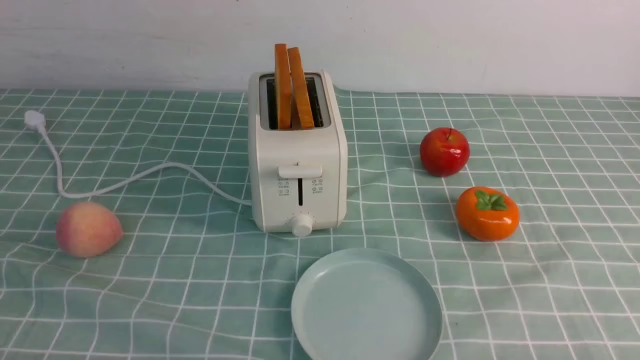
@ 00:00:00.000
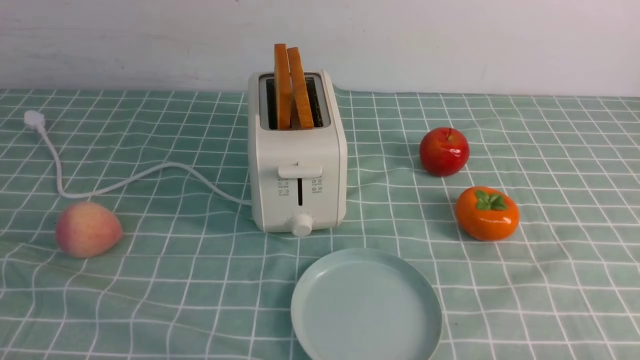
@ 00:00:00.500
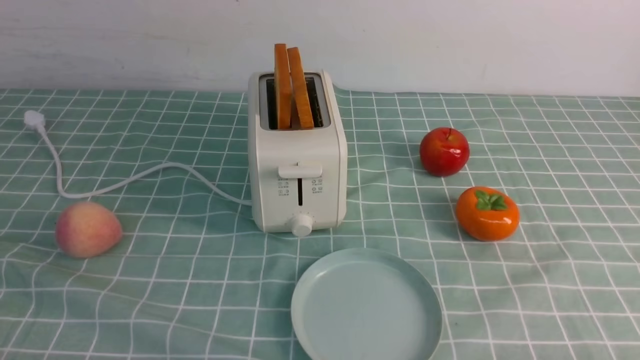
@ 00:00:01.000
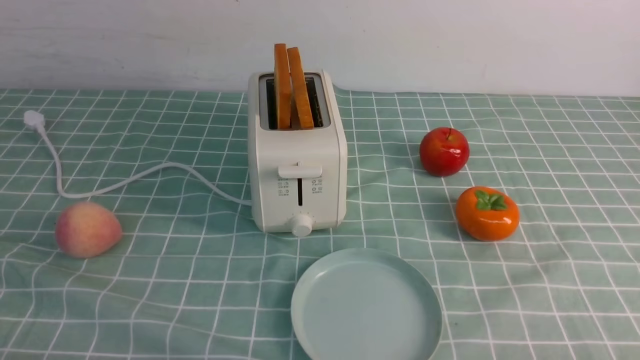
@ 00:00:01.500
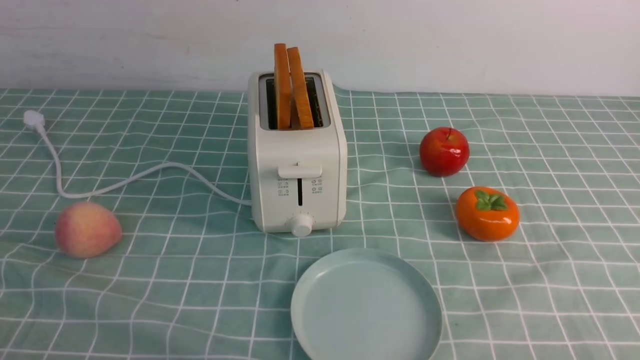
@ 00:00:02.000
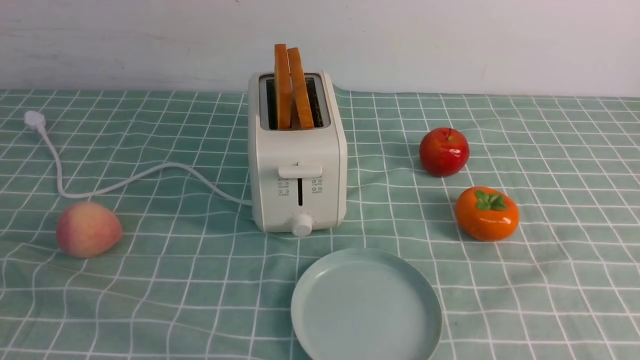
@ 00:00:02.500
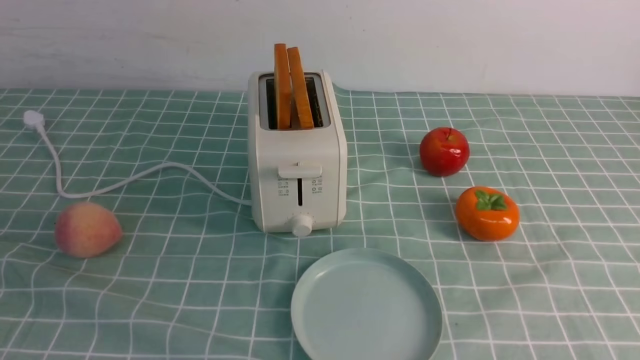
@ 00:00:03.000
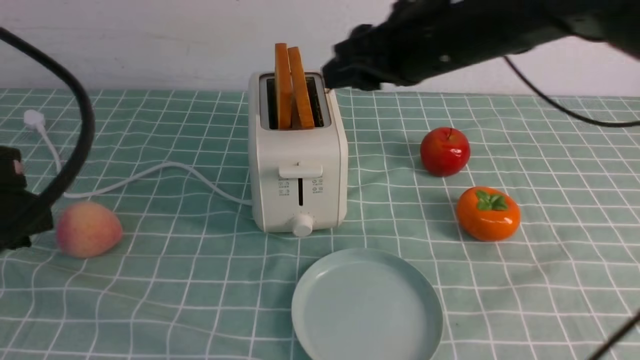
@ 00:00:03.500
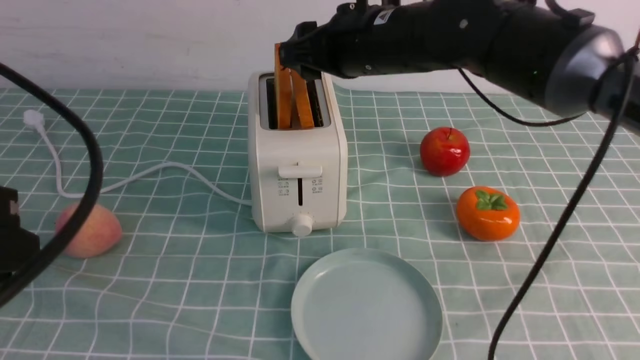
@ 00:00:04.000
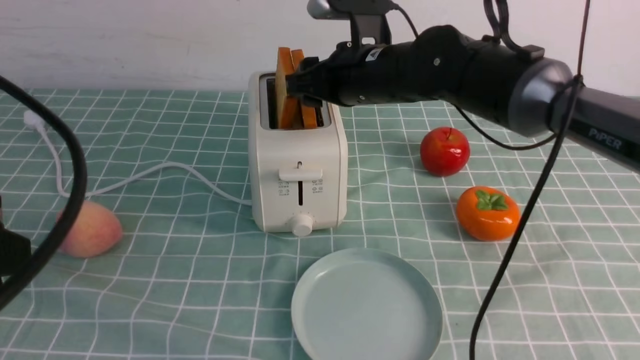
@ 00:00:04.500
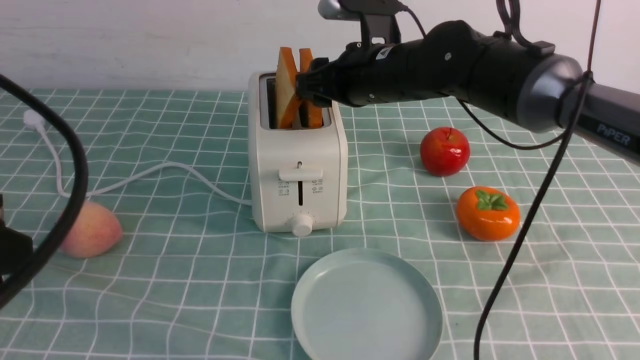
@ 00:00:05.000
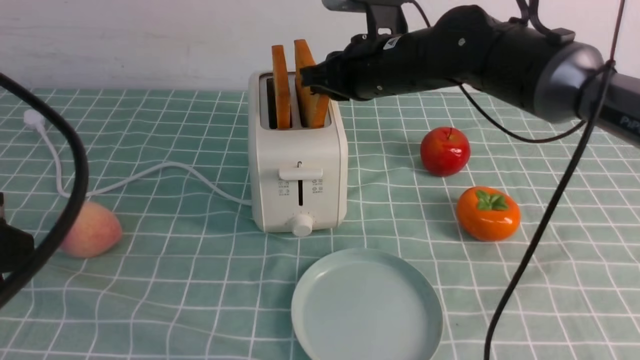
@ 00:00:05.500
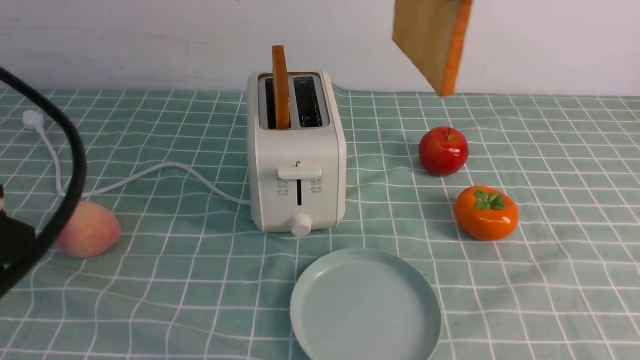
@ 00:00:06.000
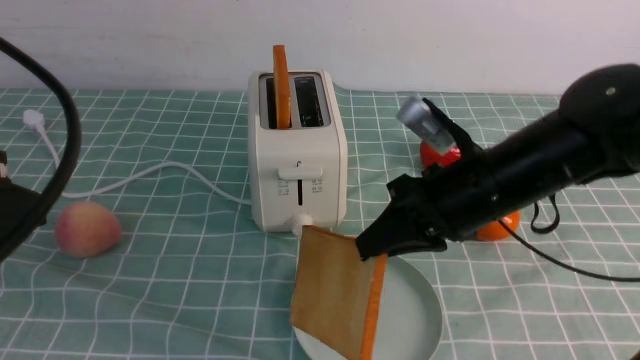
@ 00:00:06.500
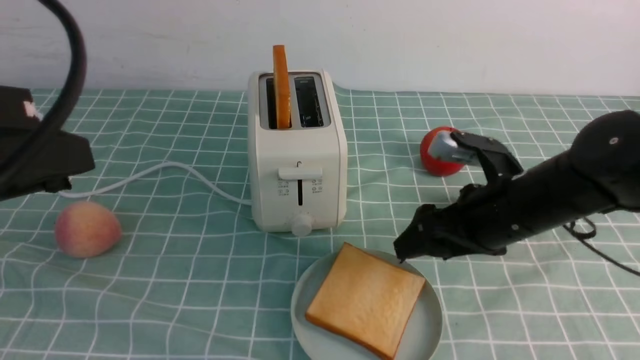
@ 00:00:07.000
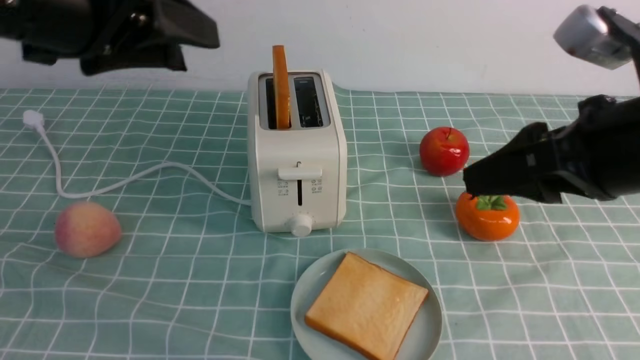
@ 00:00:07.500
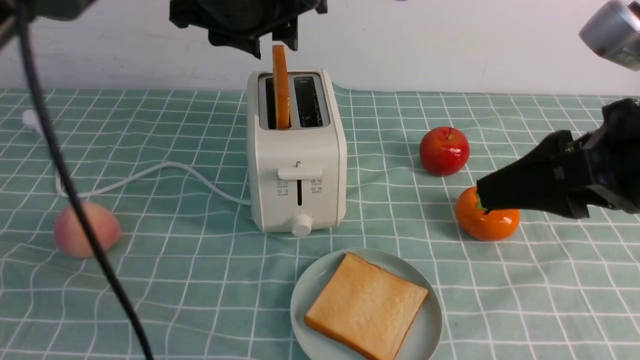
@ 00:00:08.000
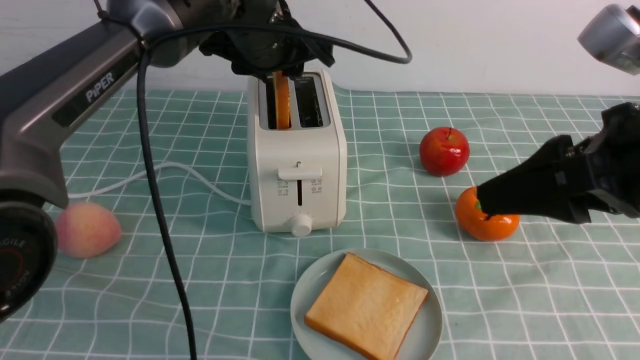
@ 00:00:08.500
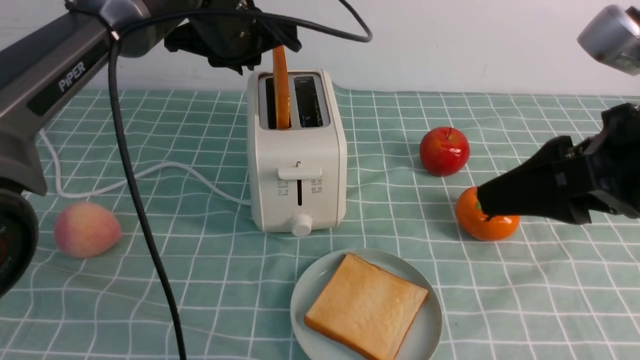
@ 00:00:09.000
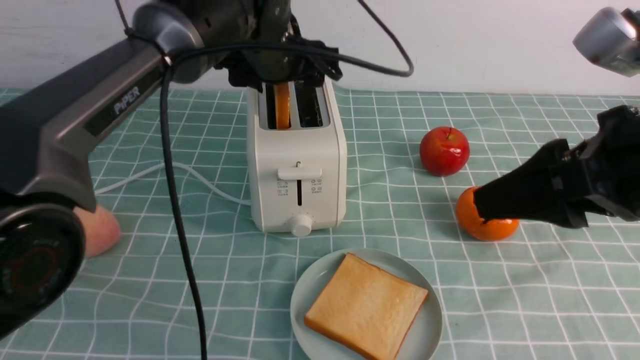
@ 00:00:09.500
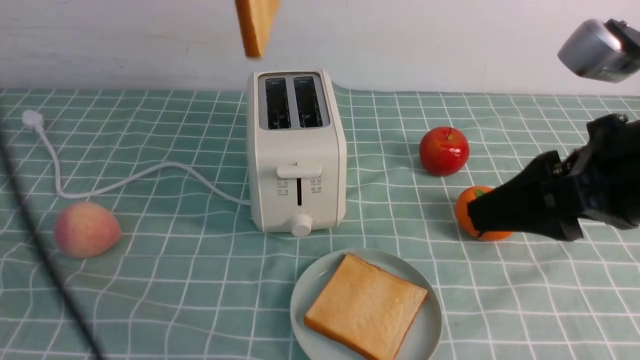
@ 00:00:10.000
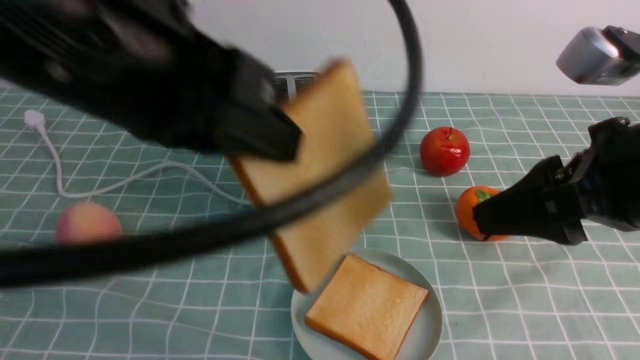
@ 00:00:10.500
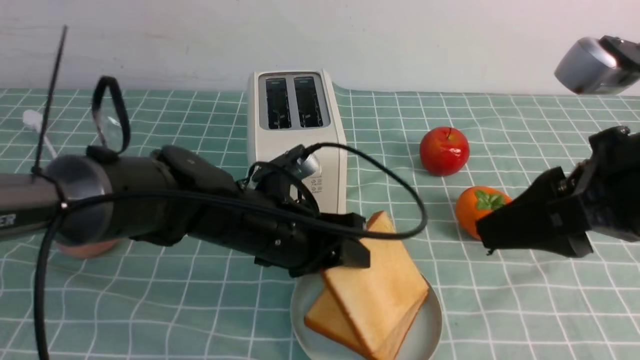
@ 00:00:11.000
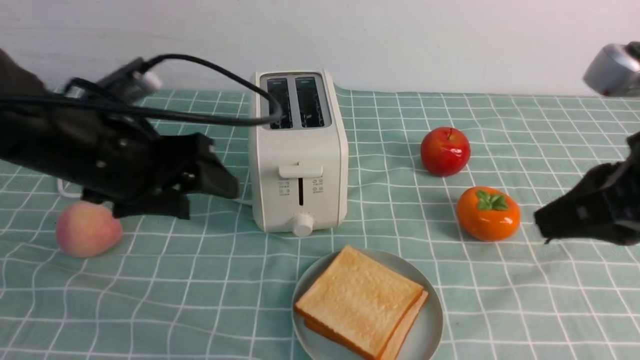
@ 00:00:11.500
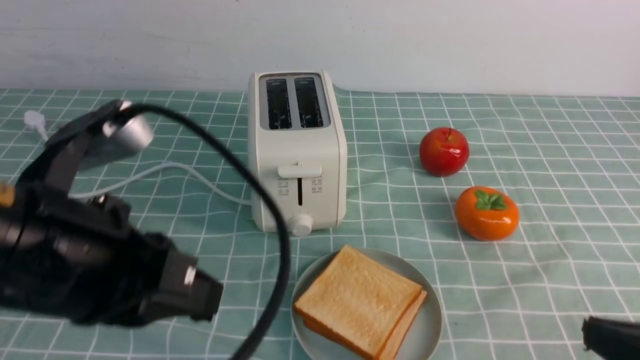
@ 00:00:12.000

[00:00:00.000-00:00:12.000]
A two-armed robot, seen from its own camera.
Task of the whole recording: take toasted bread from bread machine on blue coffee table place on plate.
Step, 00:00:00.000 to 00:00:05.500: use the right arm to take out a slice of bread.
Step, 00:00:06.000 to 00:00:07.500: use the right arm to put a slice of bread into the plate.
Step, 00:00:08.000 to 00:00:09.500: use the left arm to take out a slice of bread.
Step, 00:00:10.000 to 00:00:11.500: use the left arm to put a slice of bread into the empty plate.
00:00:02.000 to 00:00:04.000: The left gripper heads upward and forward, covering some 15 cm; the right gripper moves forward and to the left, approximately 40 cm.
00:00:04.000 to 00:00:06.000: The right gripper shifts some 15 cm to the right, upward and backward, and closes.
00:00:06.000 to 00:00:08.000: The left gripper travels forward and to the right by about 30 cm. Meanwhile the right gripper shifts some 15 cm backward, travels downward and back again, some 15 cm each way, and opens its fingers.
00:00:08.000 to 00:00:10.000: The left gripper heads upward, covering approximately 10 cm, and closes up.
00:00:10.000 to 00:00:12.000: The left gripper travels backward and downward by roughly 25 cm, and opens, then closes again, while the right gripper shifts about 15 cm downward, backward and to the right, and closes.
